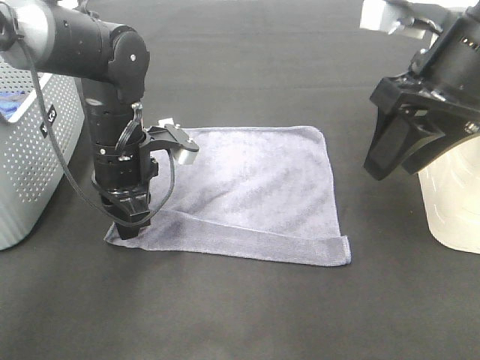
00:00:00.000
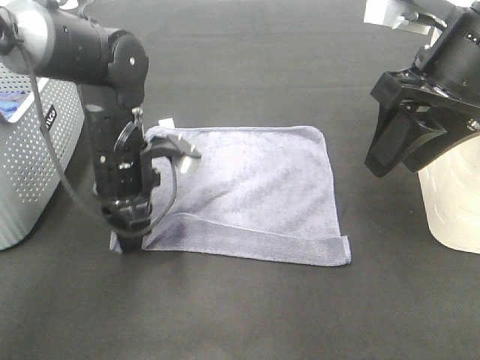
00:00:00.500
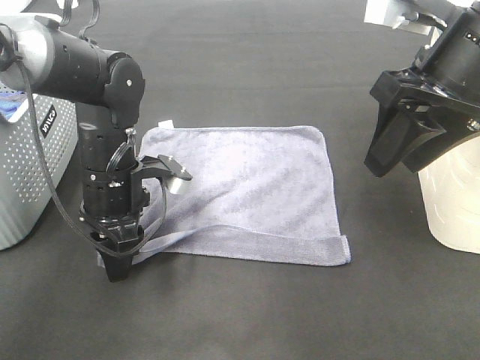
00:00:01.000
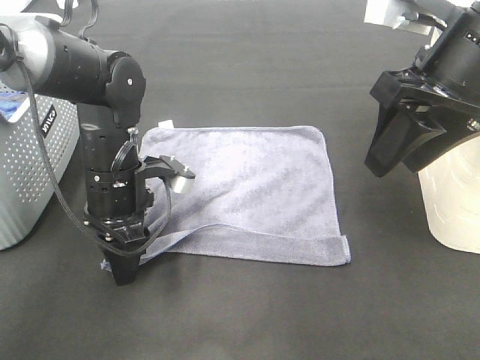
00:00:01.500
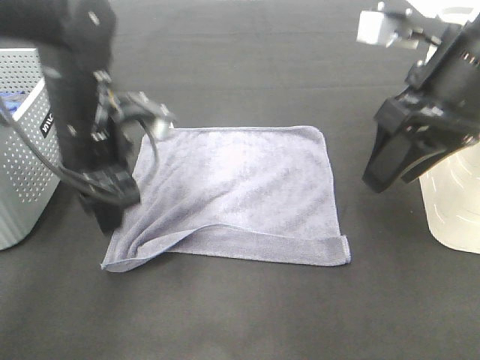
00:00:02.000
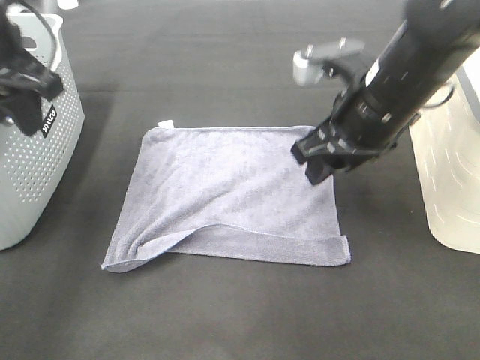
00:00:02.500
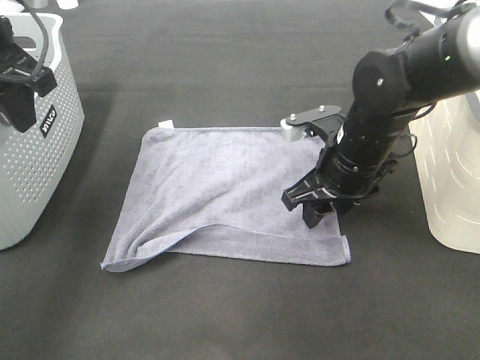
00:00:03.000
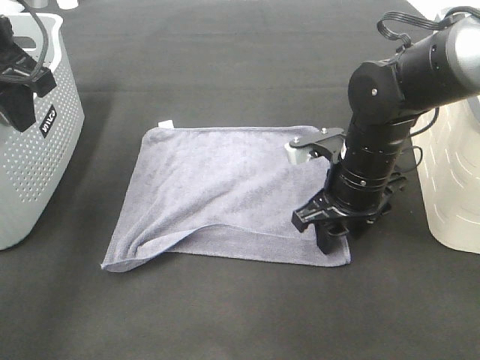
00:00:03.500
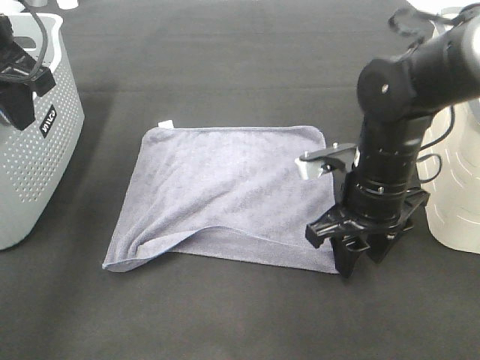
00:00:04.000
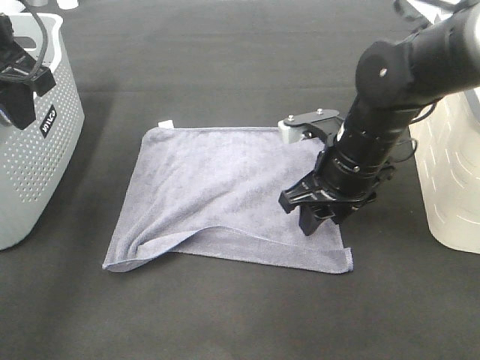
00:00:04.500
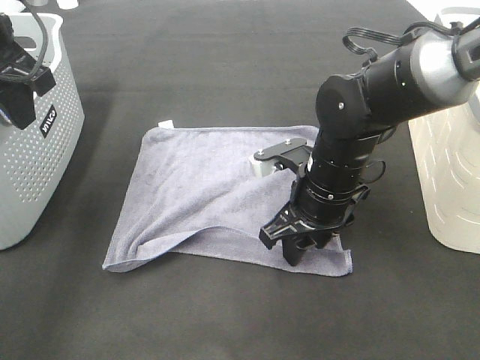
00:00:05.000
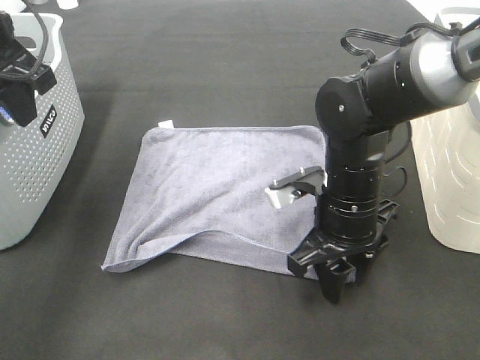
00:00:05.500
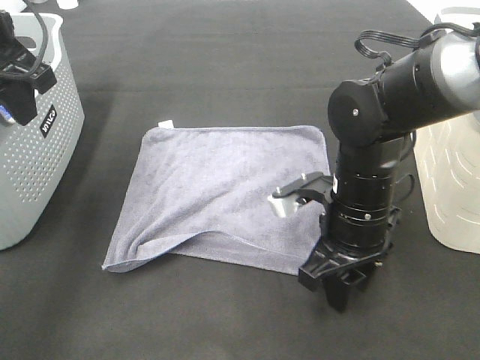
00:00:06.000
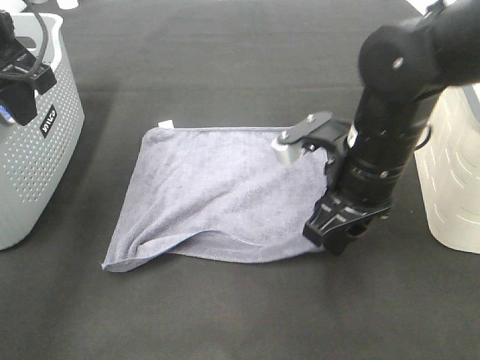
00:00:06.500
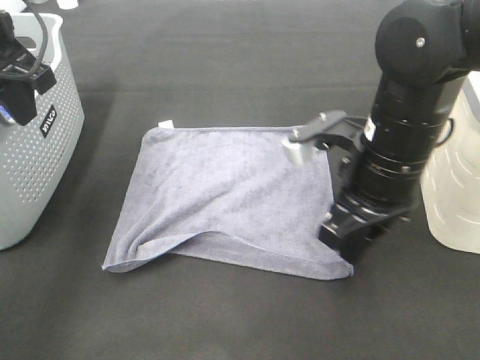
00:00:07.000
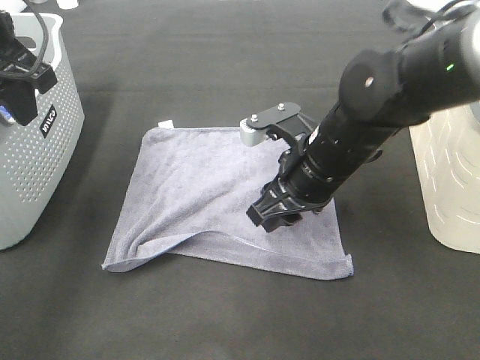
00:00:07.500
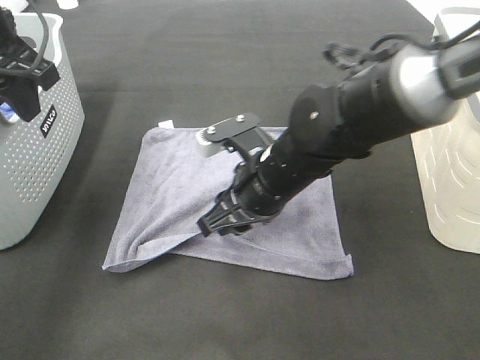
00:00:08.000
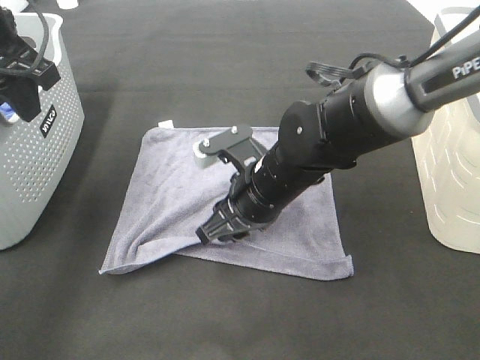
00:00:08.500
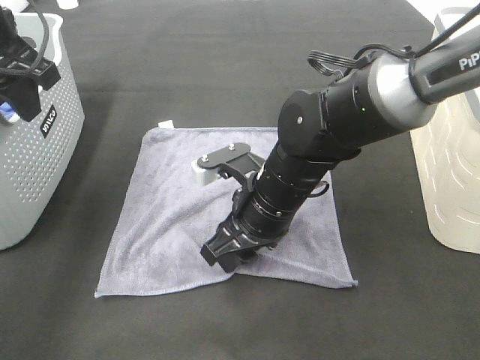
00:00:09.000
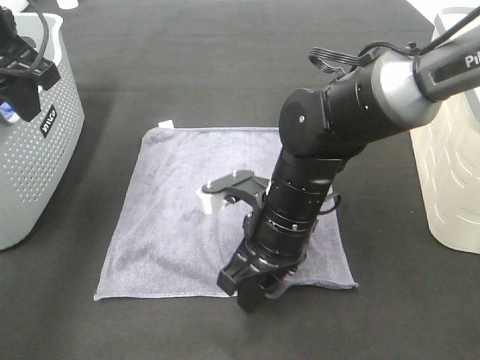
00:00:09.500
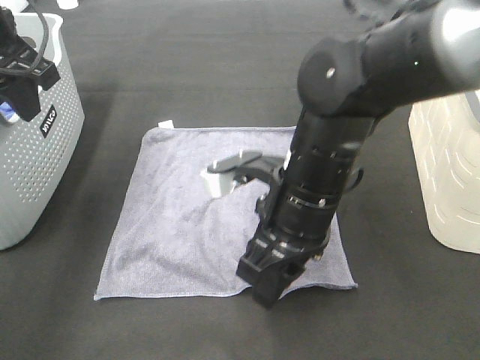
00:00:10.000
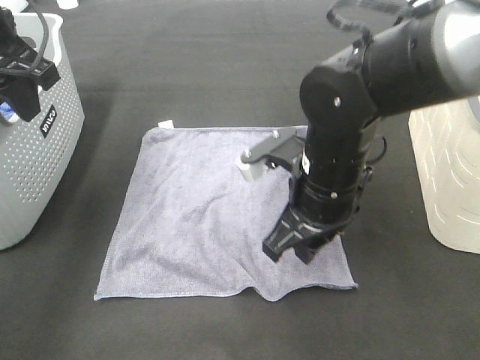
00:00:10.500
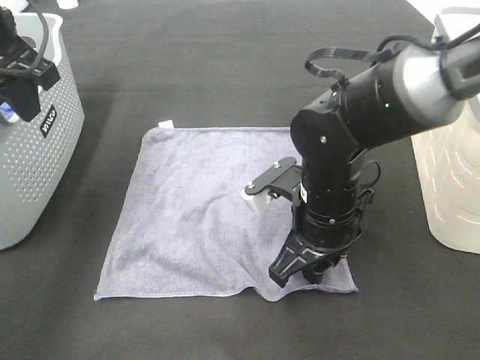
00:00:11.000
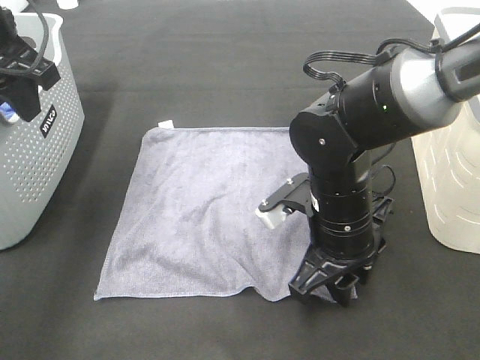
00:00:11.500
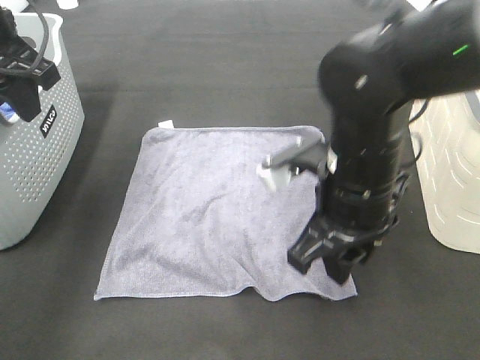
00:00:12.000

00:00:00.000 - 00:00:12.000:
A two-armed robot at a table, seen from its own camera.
Task of the whole recording: Remove the towel and place it.
Step, 00:00:00.000 - 00:00:05.000: Right hand:adjust the gray towel.
00:00:00.000 - 00:00:02.000: The left gripper goes about 5 cm upward, and opens its fingers.
00:00:02.000 - 00:00:04.000: The left gripper shifts about 15 cm upward and to the left, while the right gripper moves downward, roughly 15 cm.
00:00:04.000 - 00:00:06.000: The grippers stay close to where they were, moving slightly.
00:00:06.000 - 00:00:08.000: The right gripper shifts about 10 cm to the left.
00:00:08.000 - 00:00:10.000: The right gripper is displaced backward by some 5 cm.

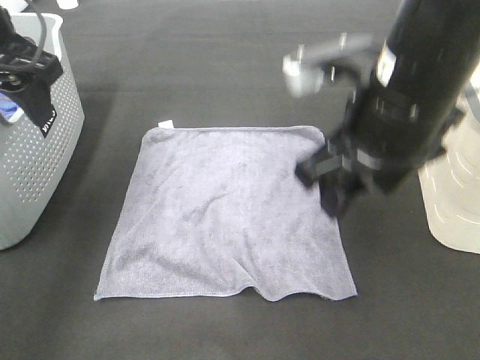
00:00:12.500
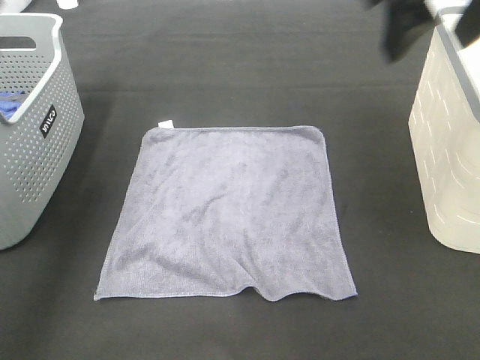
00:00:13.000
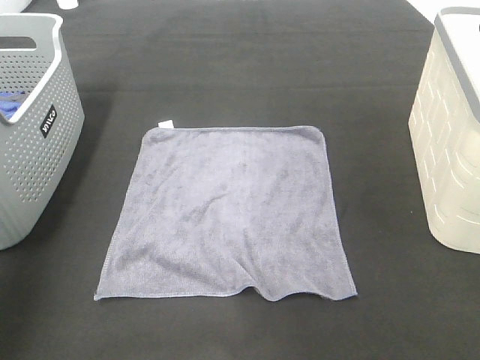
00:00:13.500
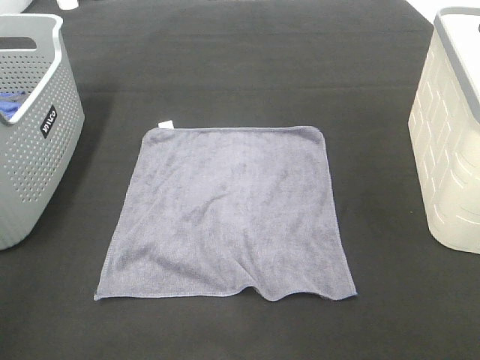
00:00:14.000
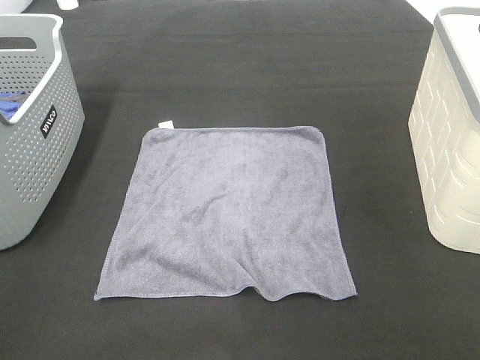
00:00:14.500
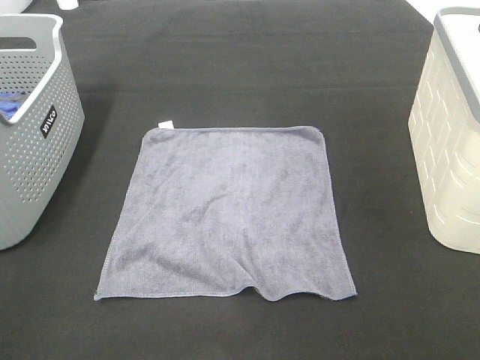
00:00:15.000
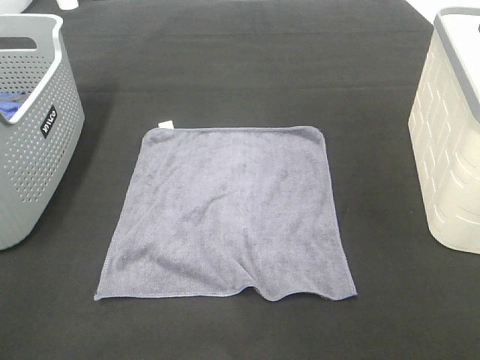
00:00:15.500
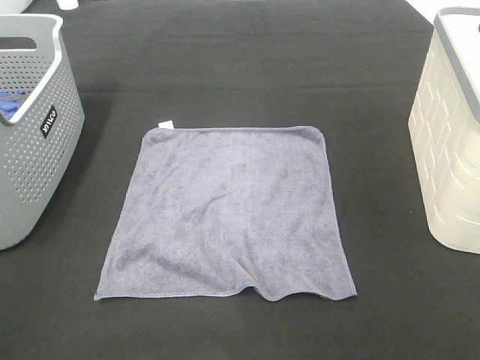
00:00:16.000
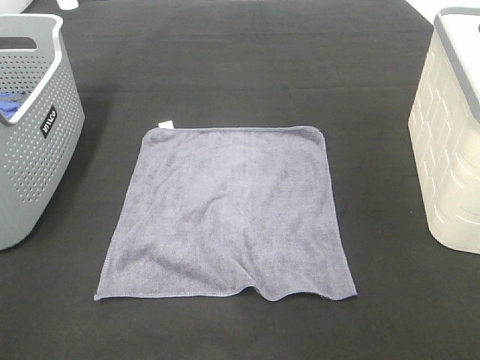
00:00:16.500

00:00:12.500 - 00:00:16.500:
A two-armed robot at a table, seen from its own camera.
Task of the whole recording: Remove the towel and place it.
00:00:12.500 - 00:00:14.500: The right gripper moves backward and to the right, approximately 30 cm; the left gripper shifts some 35 cm backward.

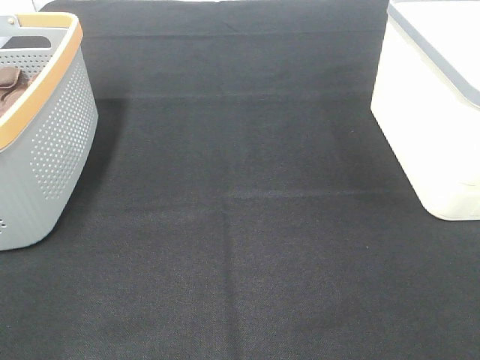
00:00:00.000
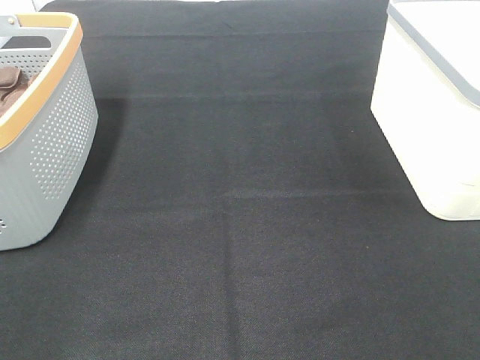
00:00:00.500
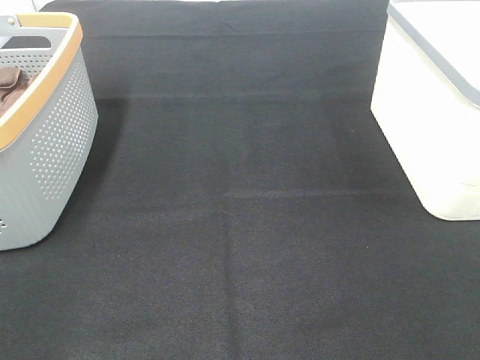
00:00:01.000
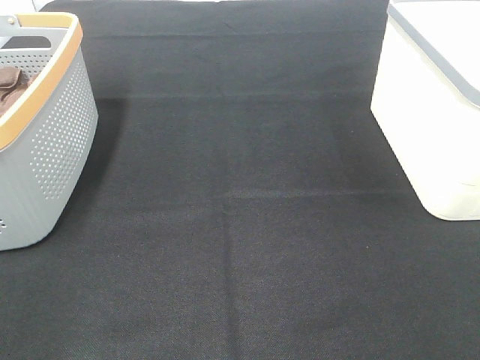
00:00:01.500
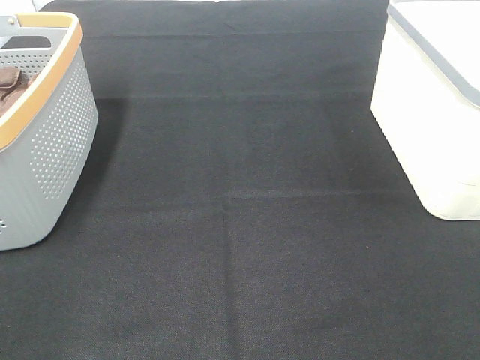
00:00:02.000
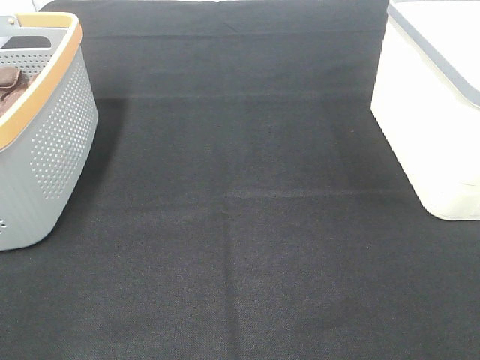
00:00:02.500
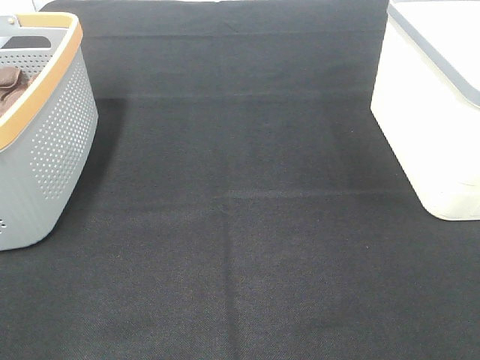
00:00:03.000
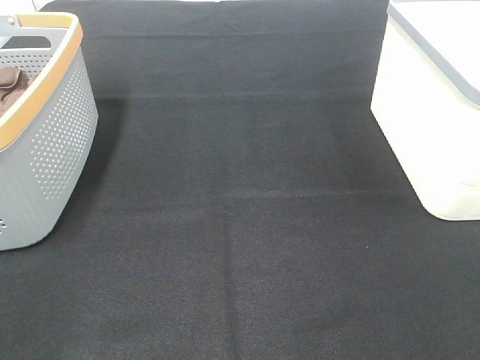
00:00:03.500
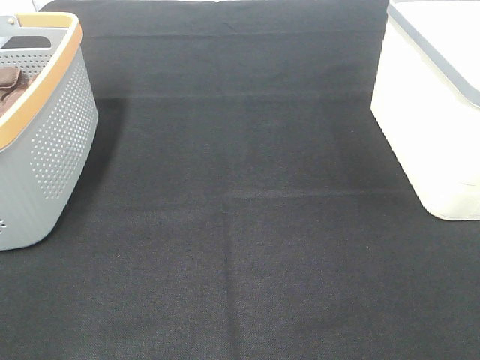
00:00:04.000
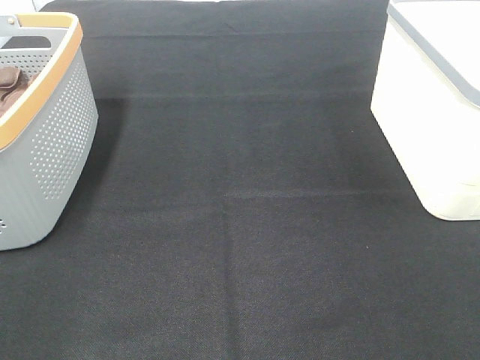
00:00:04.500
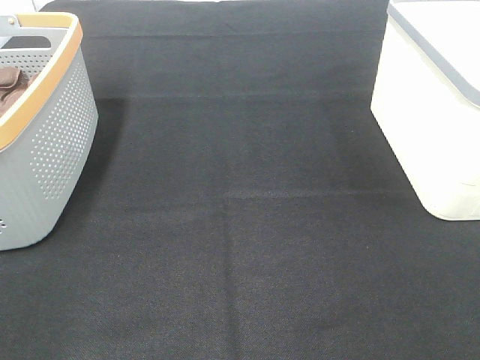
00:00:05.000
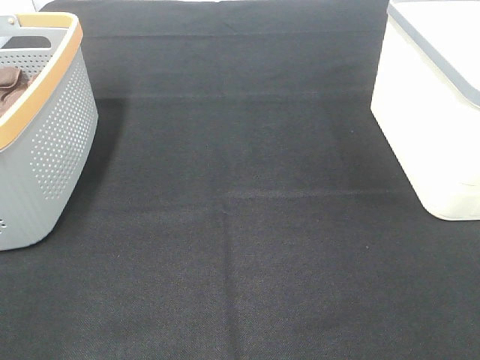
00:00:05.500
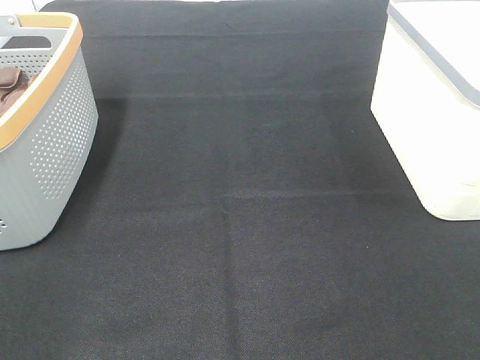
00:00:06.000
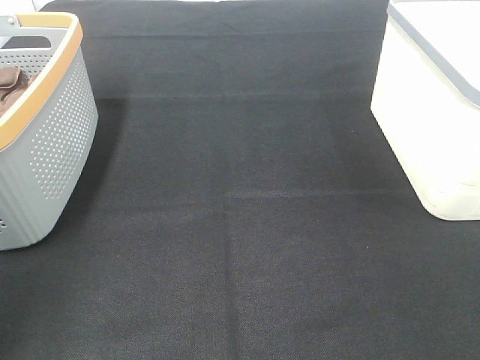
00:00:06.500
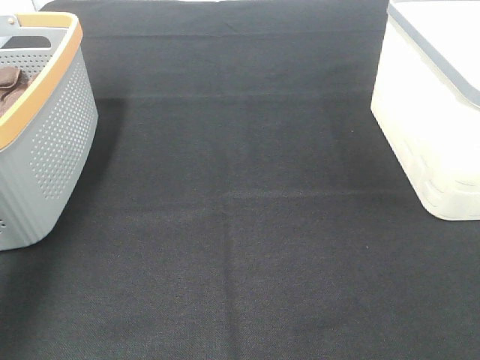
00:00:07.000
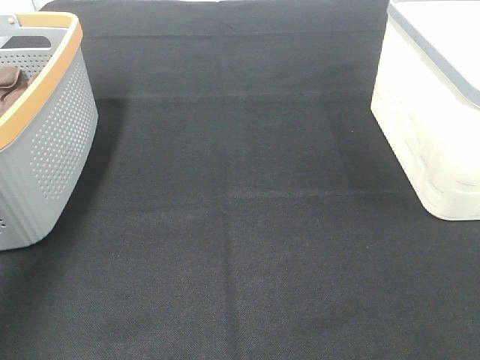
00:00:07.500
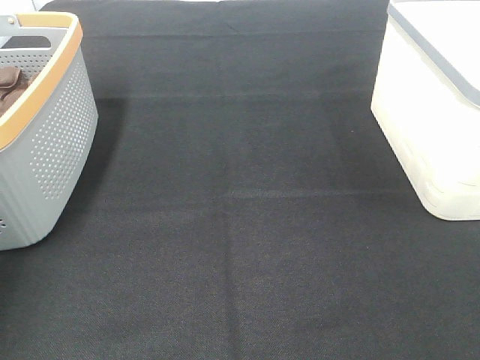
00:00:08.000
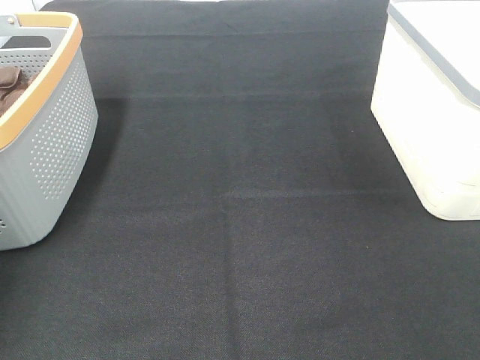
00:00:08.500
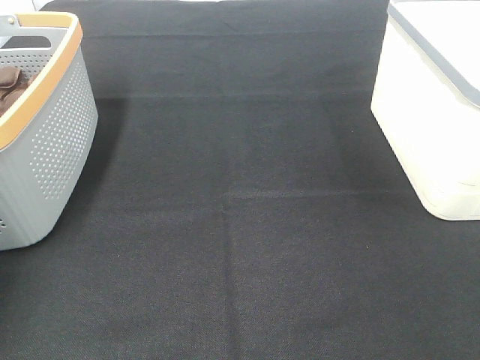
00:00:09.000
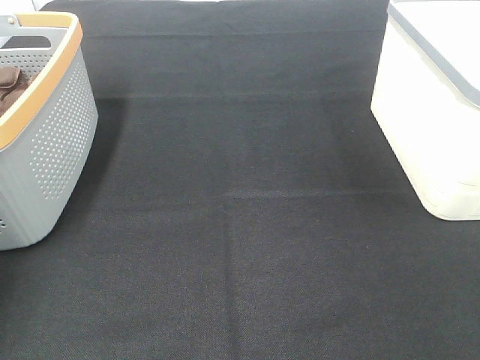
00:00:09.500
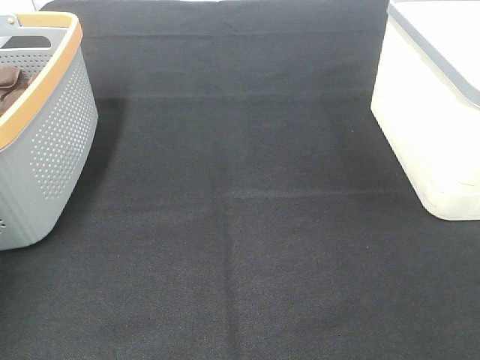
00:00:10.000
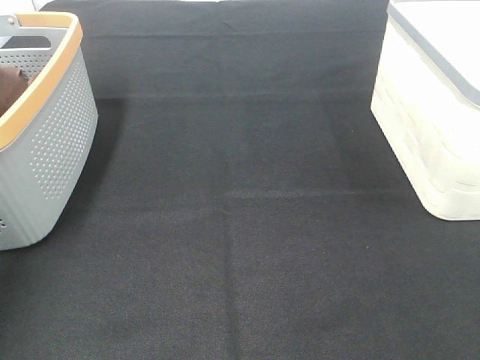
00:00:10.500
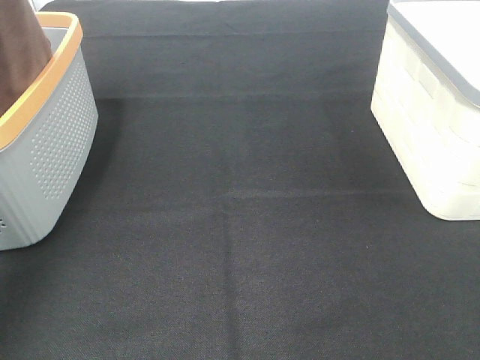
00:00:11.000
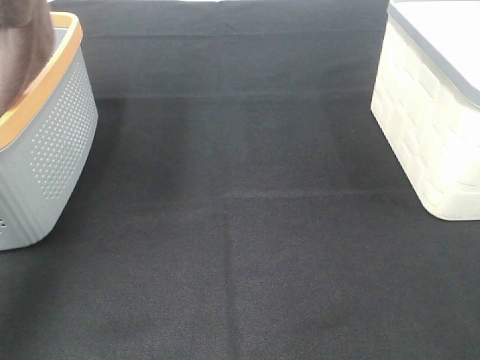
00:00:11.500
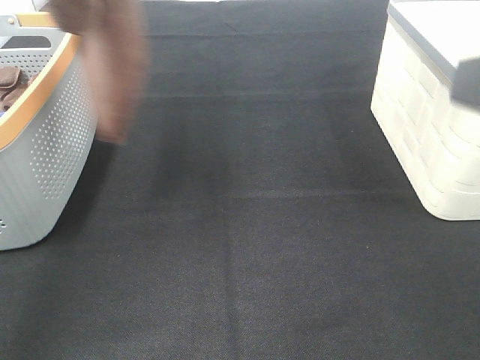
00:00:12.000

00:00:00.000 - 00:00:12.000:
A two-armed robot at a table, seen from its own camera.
Task of the whole recording: Remove the towel and place it.
00:00:00.000 - 00:00:06.000: Neither gripper changes place.
00:00:06.000 - 00:00:08.000: The left gripper shifts about 40 cm forward.
00:00:10.000 - 00:00:12.000: The right gripper moves forward and upward, approximately 15 cm; the left gripper heads upward, to the right and backward, covering roughly 35 cm.
